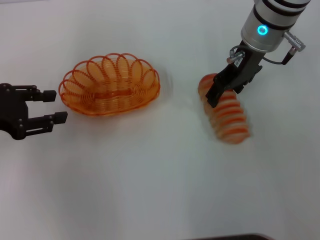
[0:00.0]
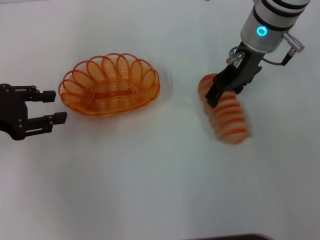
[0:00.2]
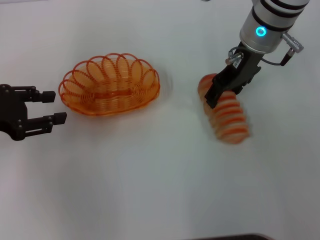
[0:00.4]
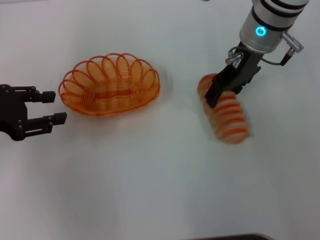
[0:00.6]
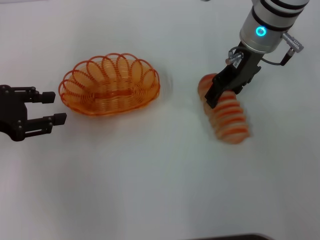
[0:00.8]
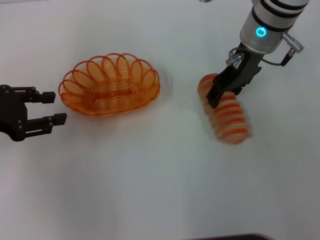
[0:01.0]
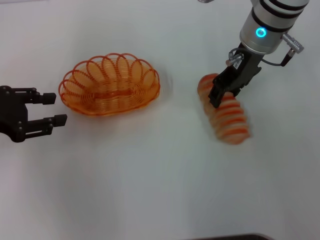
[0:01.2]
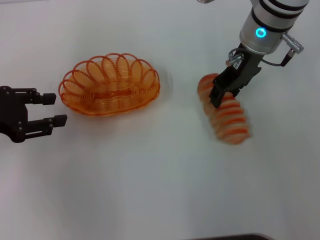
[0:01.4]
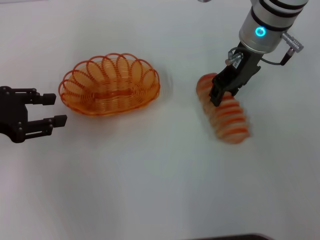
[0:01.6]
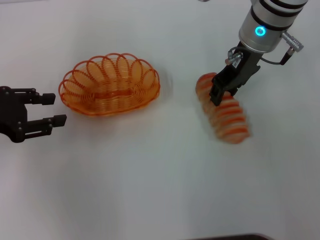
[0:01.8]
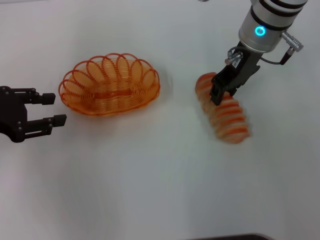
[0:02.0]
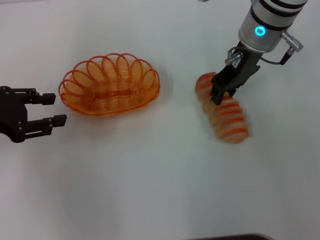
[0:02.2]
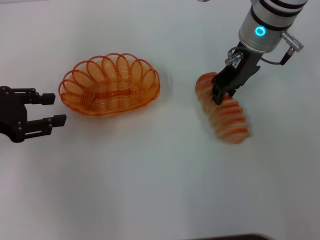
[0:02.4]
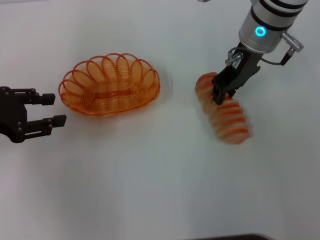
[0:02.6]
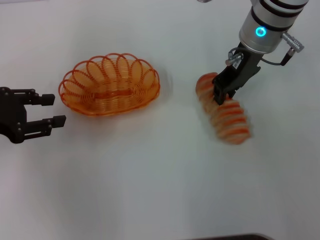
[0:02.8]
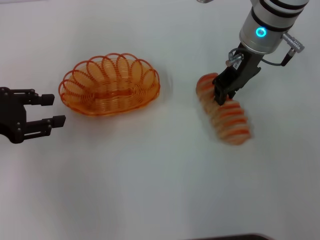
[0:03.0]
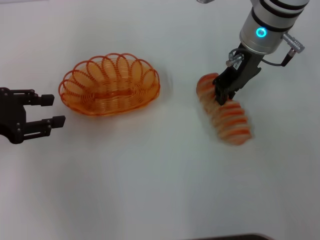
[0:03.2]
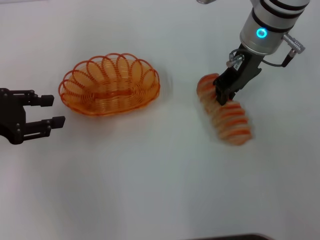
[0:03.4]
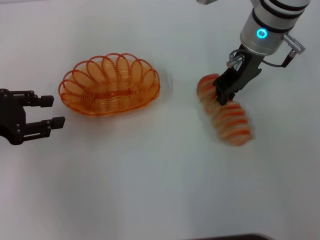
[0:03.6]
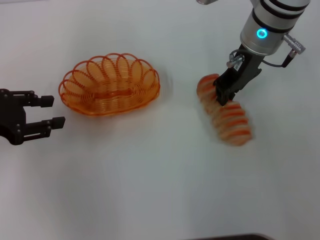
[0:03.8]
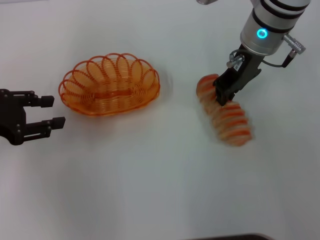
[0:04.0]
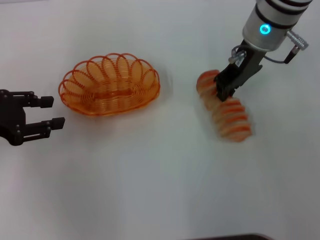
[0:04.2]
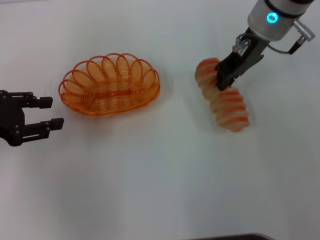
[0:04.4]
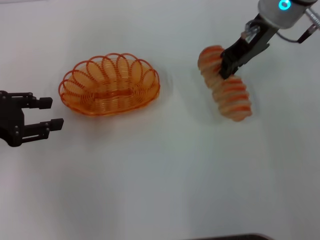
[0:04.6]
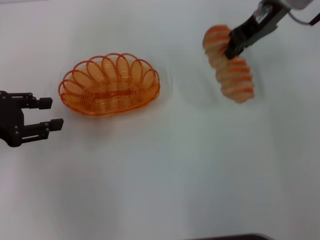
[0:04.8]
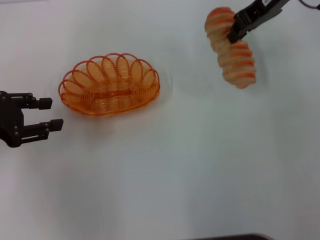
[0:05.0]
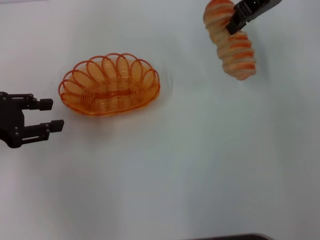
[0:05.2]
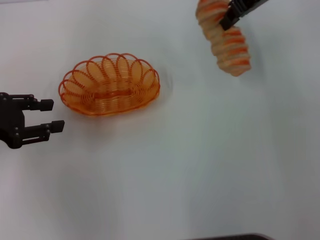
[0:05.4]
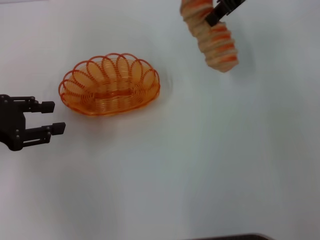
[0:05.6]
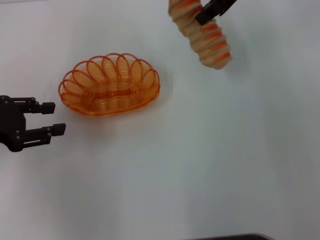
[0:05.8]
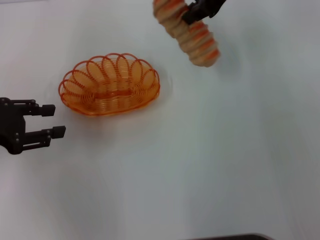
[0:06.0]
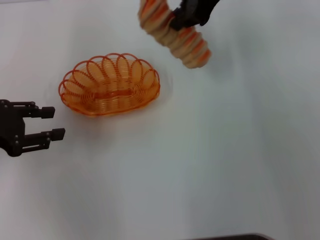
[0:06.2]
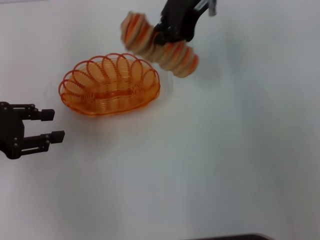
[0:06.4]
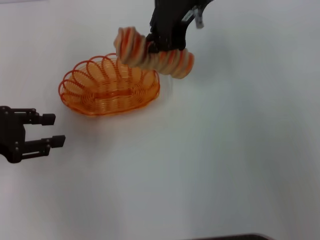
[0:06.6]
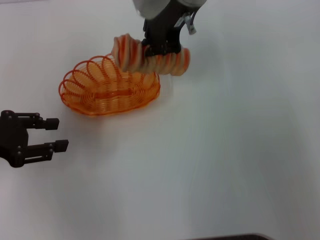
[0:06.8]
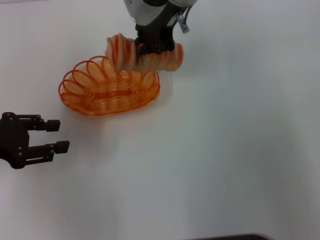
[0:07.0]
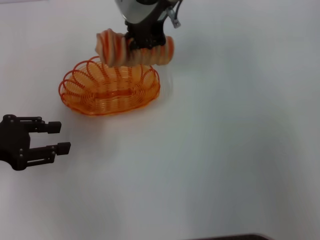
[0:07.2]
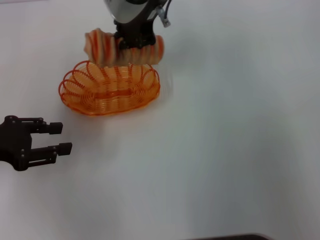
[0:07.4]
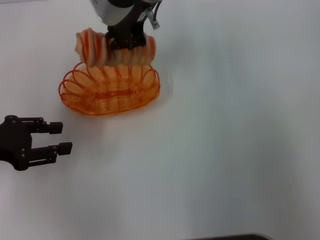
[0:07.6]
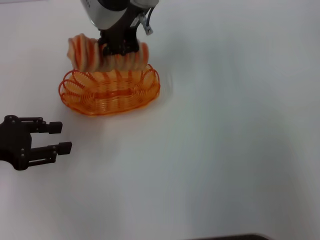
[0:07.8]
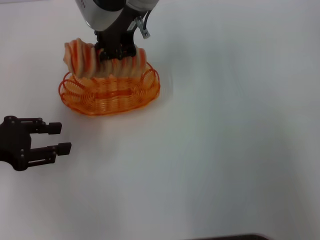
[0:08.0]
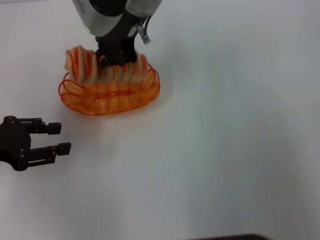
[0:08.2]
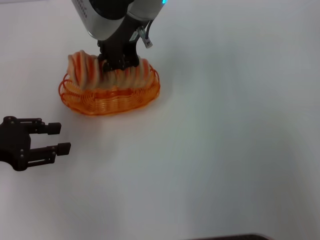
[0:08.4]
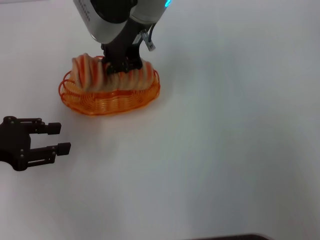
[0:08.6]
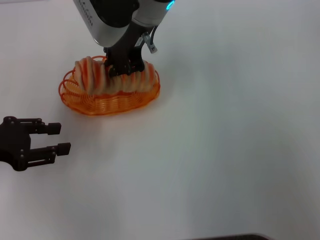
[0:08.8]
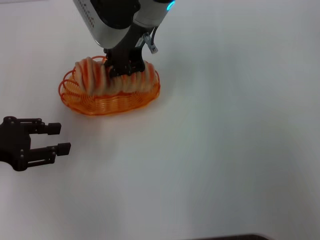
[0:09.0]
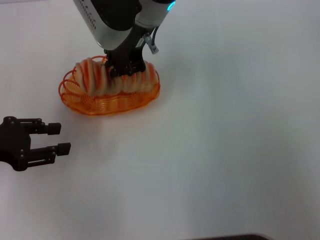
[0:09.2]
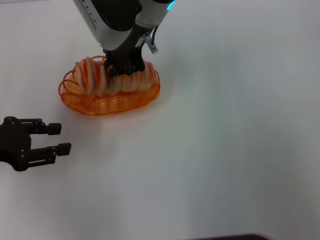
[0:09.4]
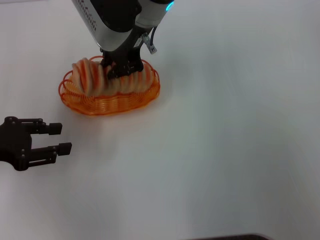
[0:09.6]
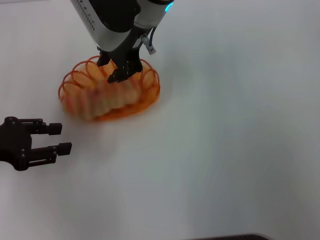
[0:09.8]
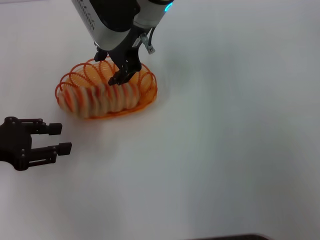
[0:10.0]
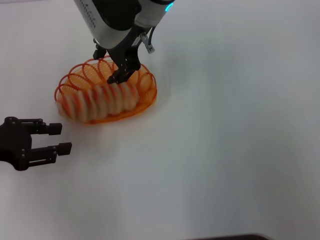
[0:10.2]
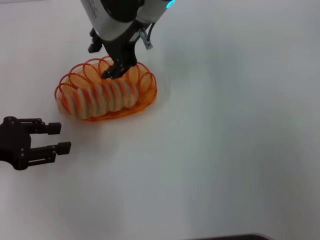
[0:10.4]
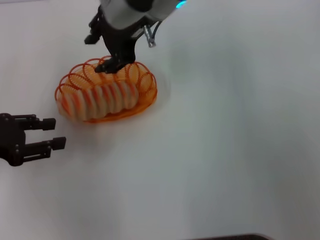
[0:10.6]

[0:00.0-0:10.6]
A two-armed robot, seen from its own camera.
Step, 0:00.0 to 0:04.2: Pick up the long bread with the right gripper.
Step, 0:04.6 to 0:10.6: Place the long bread into the basket with the right gripper.
0:00.0 to 0:03.0: Neither gripper changes place.
0:03.0 to 0:04.6: There are only small adjustments of the grippers.
0:04.6 to 0:06.0: The right gripper heads upward, covering approximately 5 cm.
0:06.0 to 0:07.6: The right gripper travels to the left by approximately 15 cm.
0:07.6 to 0:09.0: There are only small adjustments of the grippers.
0:09.0 to 0:10.6: The right gripper opens up.

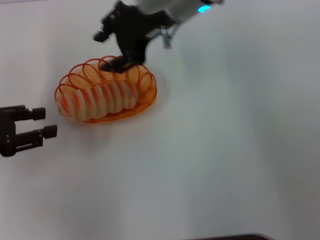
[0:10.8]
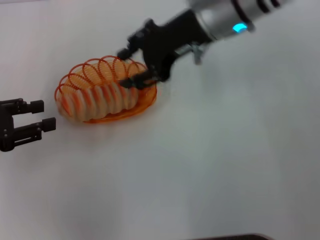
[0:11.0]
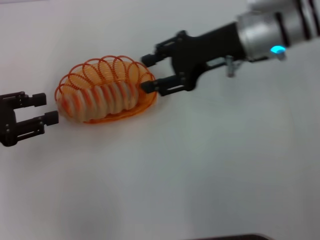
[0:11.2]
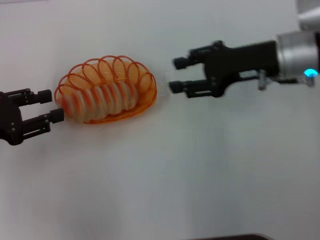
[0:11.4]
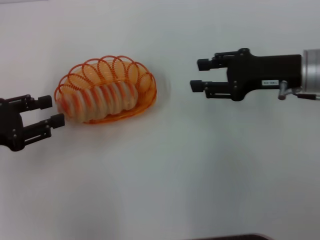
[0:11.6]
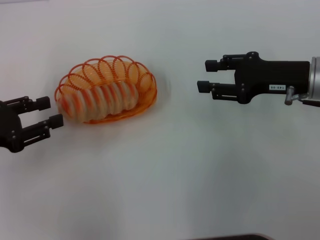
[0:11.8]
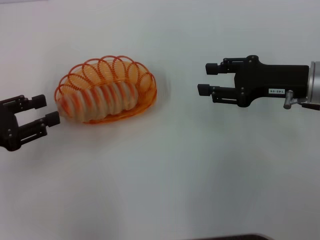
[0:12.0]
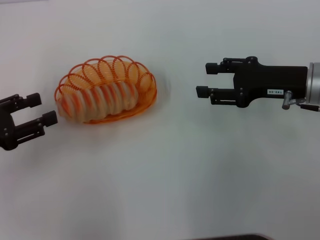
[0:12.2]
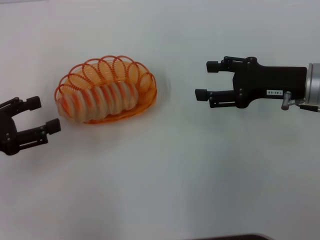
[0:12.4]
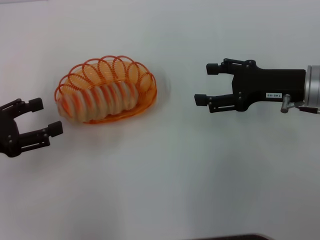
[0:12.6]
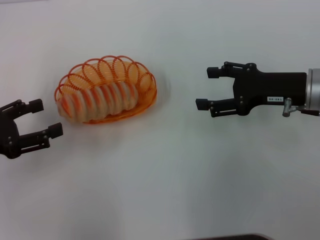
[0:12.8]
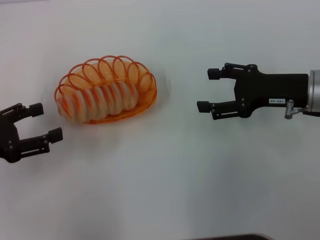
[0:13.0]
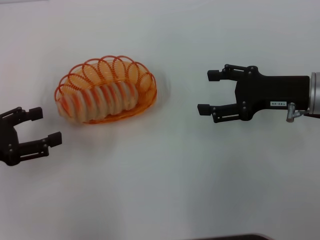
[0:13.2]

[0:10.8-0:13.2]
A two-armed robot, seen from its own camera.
0:10.8 to 0:12.0: The right gripper travels to the right, downward and backward by roughly 25 cm.
0:12.0 to 0:13.2: The left gripper opens; the right gripper opens.
